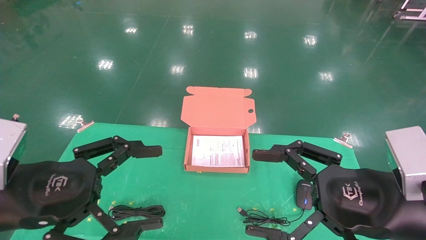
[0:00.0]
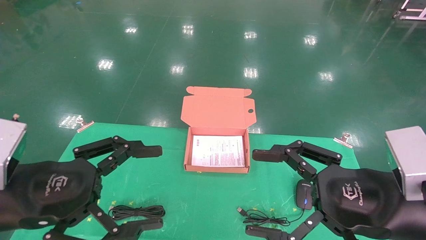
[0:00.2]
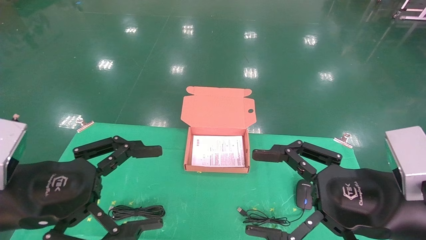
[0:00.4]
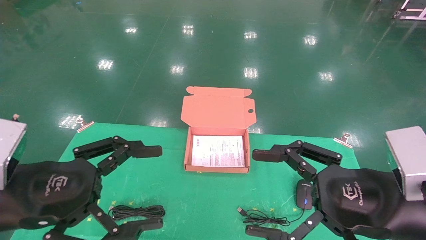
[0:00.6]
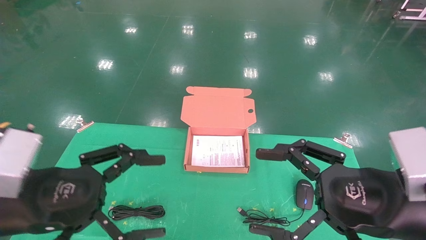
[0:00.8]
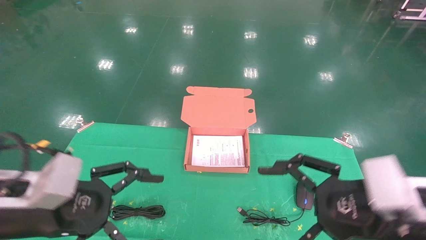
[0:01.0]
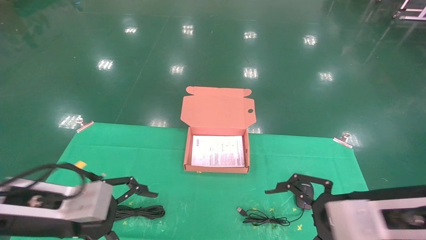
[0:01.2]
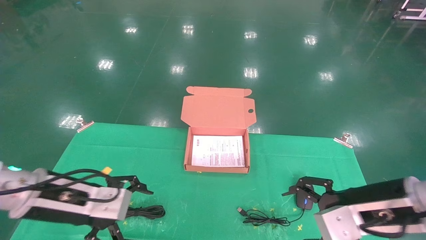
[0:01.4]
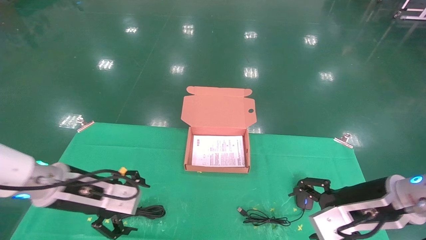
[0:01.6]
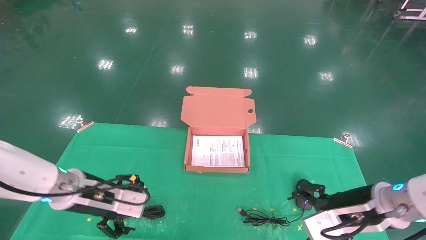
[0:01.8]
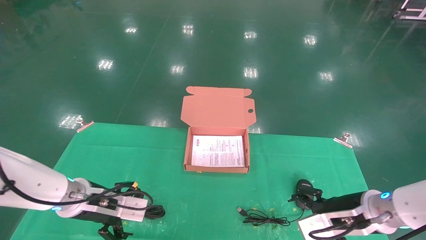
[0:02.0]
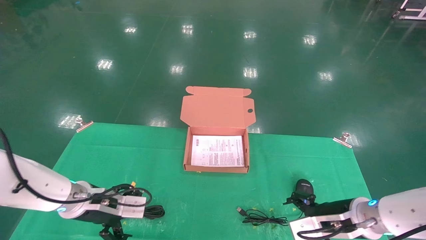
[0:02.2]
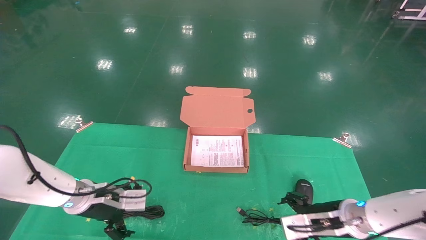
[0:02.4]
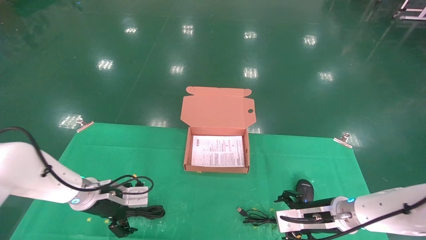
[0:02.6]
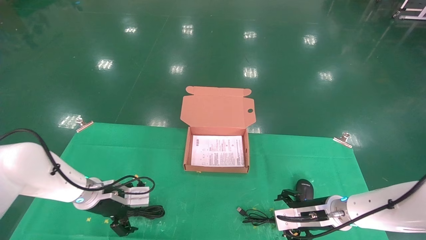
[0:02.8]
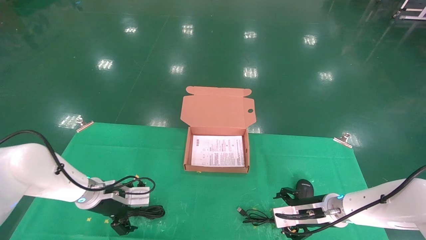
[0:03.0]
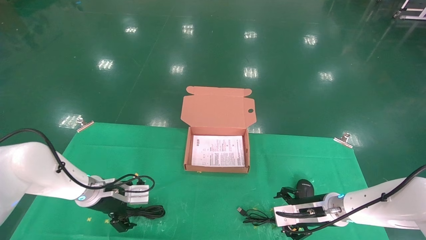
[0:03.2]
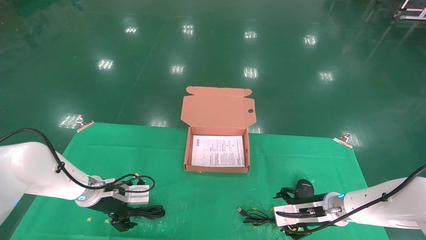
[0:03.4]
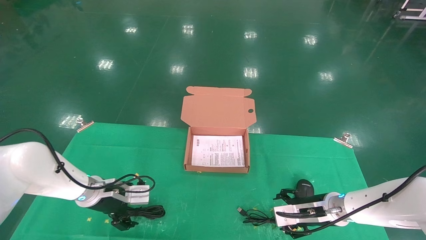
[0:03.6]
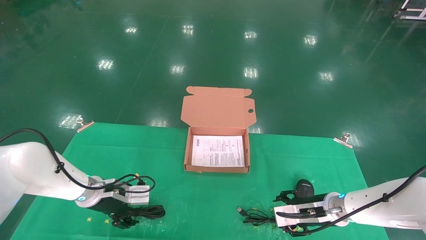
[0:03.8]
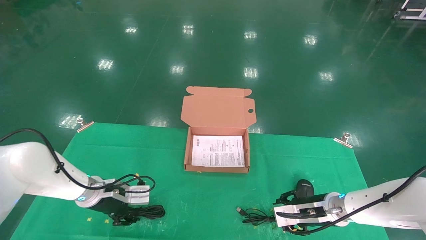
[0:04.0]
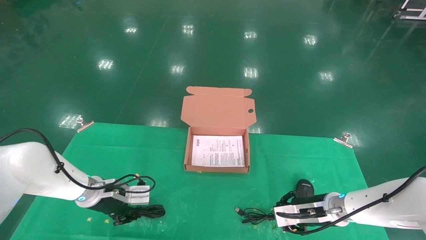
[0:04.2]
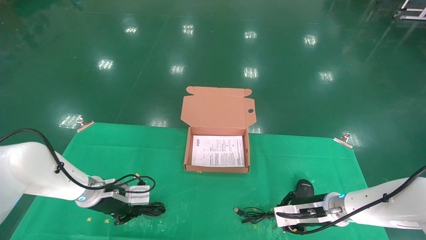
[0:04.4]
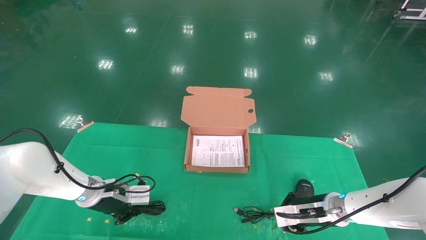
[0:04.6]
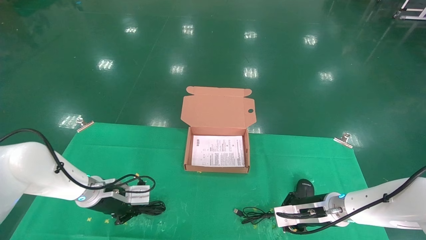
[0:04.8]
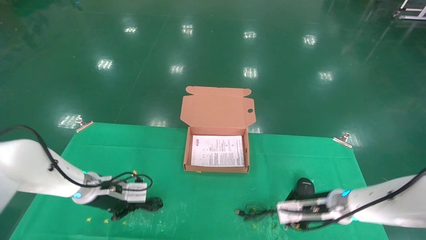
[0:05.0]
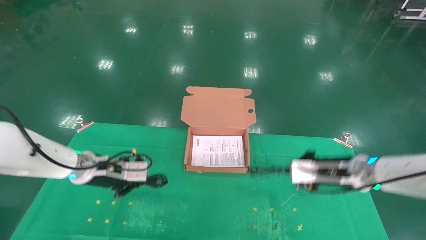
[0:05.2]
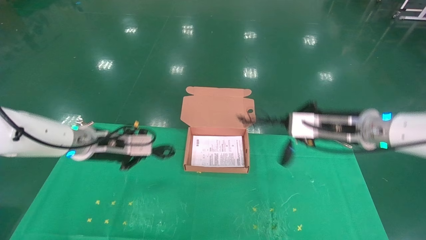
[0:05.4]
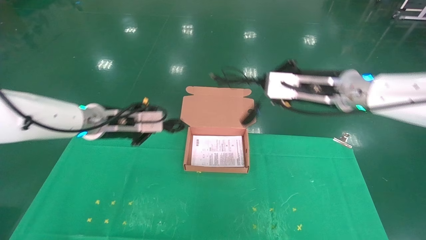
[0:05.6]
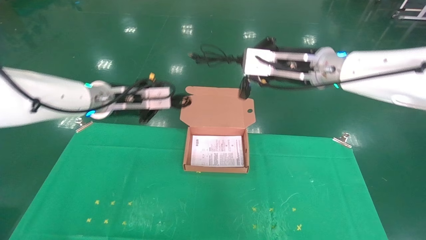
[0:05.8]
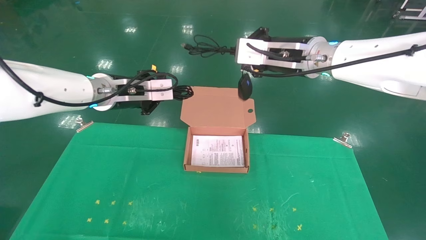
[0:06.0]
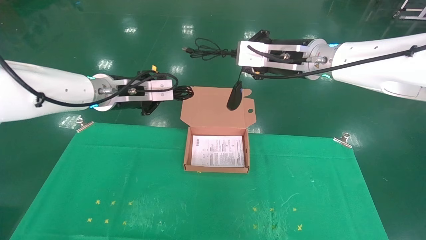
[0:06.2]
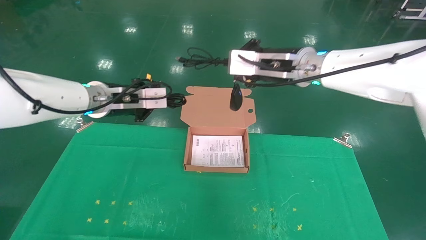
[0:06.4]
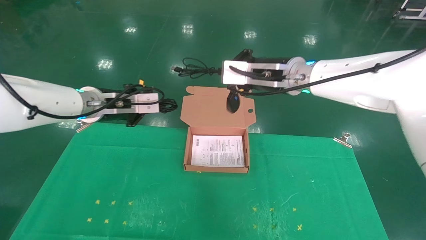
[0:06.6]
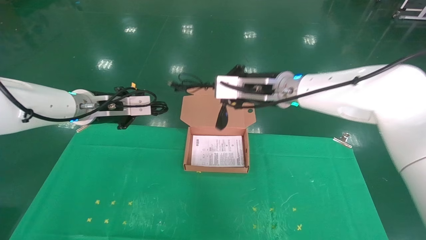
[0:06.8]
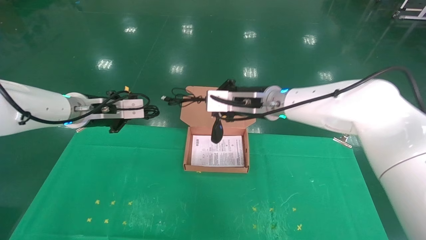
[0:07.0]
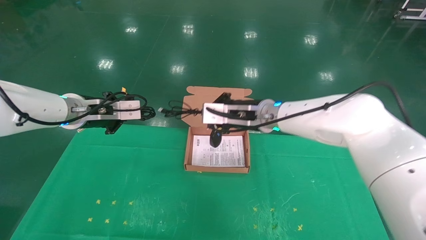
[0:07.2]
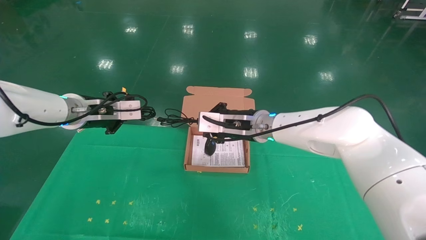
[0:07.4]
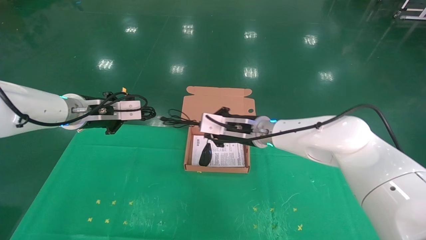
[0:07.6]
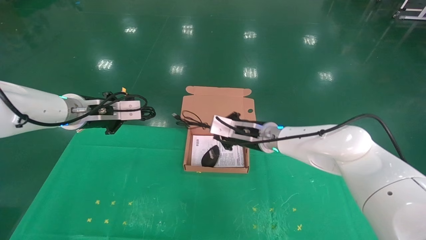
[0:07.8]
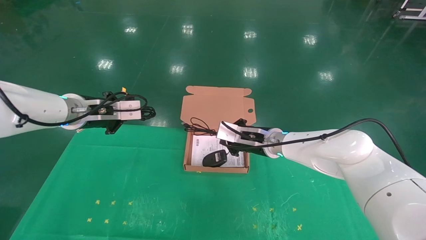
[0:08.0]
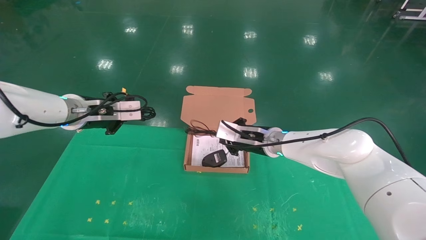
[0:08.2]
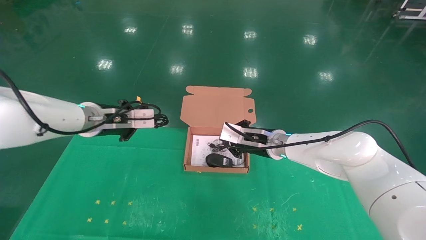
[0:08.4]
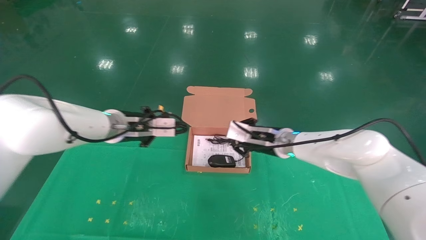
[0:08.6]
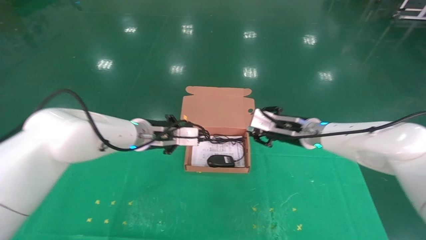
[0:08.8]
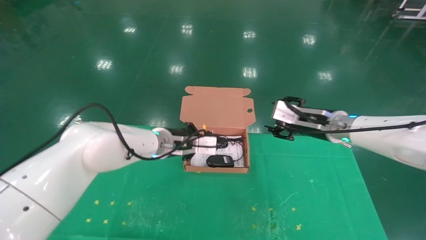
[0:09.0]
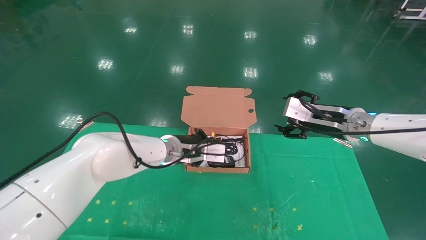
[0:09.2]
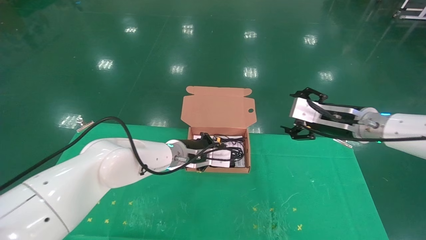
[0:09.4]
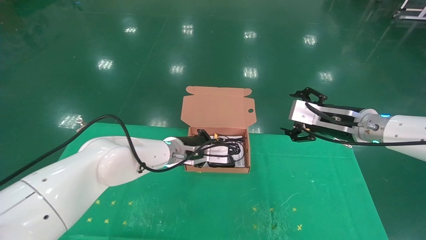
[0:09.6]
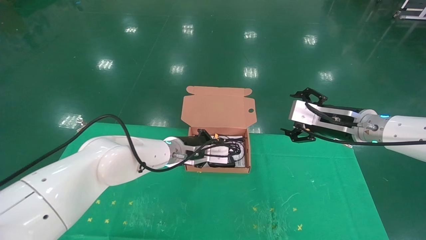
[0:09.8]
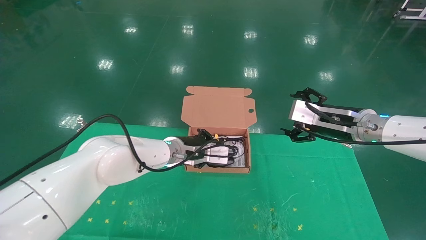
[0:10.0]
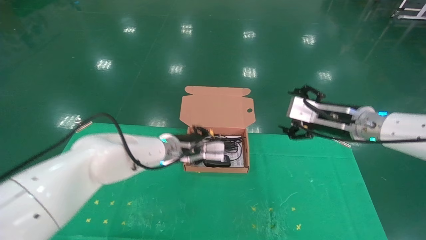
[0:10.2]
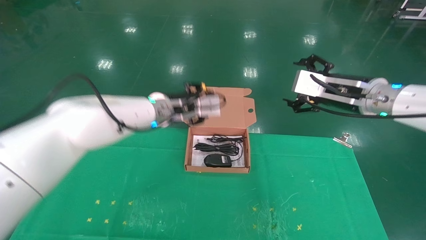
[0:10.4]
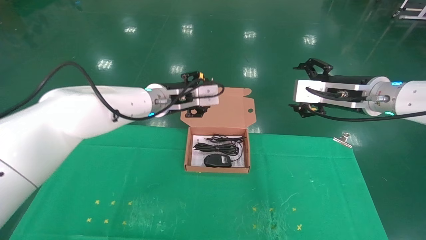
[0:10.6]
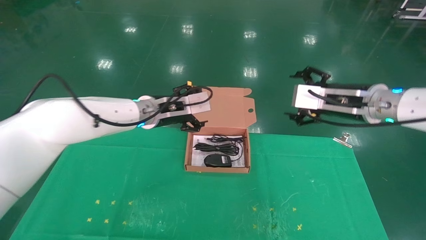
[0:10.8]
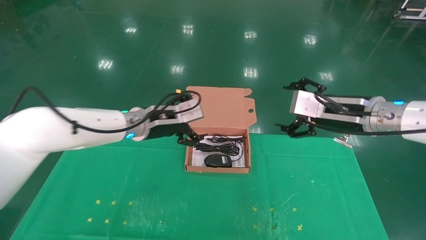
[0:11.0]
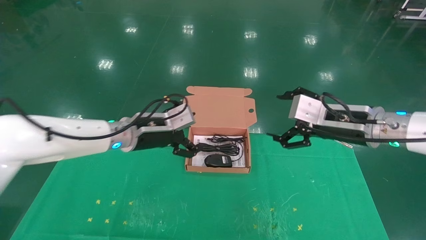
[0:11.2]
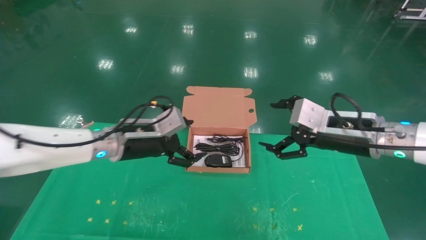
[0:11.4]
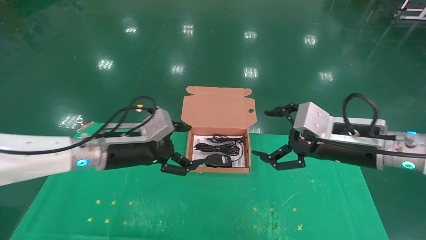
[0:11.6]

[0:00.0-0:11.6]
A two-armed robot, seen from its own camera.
Task of the whole recording: grasp data cable left put into box grasp mouse right put into box.
Step, 0:01.0 to 0:05.2: Grab and pick up both the mouse and power cord from the accessory packaging area at the same time.
Step, 0:05.4 to 0:10.2: Place the mouse and power cord into the box.
0:00.0 to 0:01.4: The left gripper heads forward and downward, covering approximately 10 cm. Meanwhile the right gripper travels forward by some 5 cm.
0:01.4 to 0:02.8: The grippers both shift forward and downward by about 20 cm.
0:02.8 to 0:04.4: The left gripper closes, while the right gripper closes its fingers.
0:04.4 to 0:05.8: The two grippers go some 25 cm upward.
0:05.8 to 0:07.2: The right gripper moves downward and to the left, about 15 cm. Meanwhile the left gripper goes approximately 5 cm to the left.
0:07.2 to 0:08.8: The left gripper travels to the right and downward by some 15 cm; the right gripper is displaced to the right by roughly 10 cm.
0:08.8 to 0:10.2: The right gripper is displaced to the right, upward and backward by some 10 cm, and opens its fingers. Meanwhile the left gripper is displaced to the right by approximately 5 cm.
0:10.2 to 0:11.6: The left gripper heads to the left and backward, covering some 15 cm, and opens its fingers, while the right gripper travels backward by approximately 10 cm.
